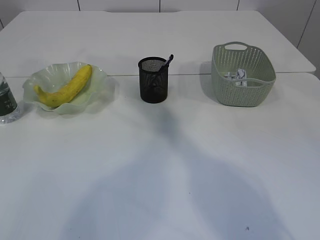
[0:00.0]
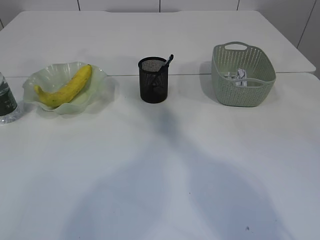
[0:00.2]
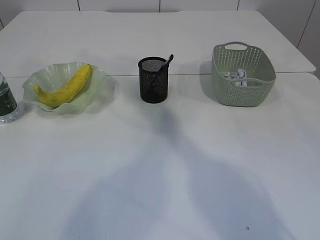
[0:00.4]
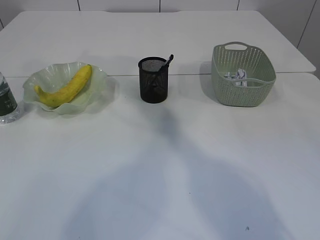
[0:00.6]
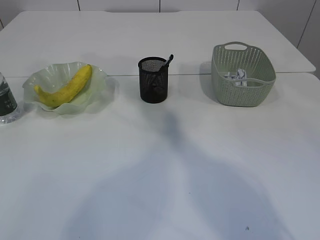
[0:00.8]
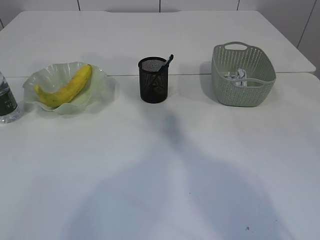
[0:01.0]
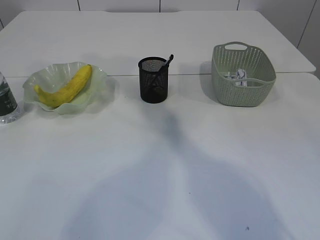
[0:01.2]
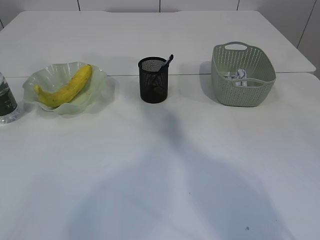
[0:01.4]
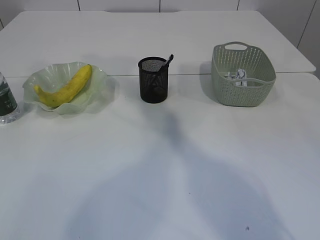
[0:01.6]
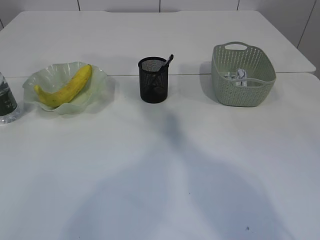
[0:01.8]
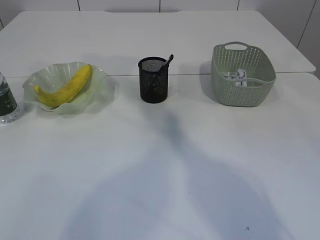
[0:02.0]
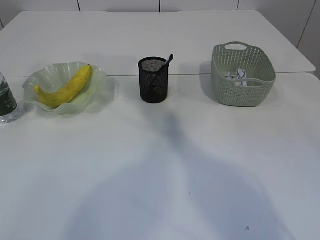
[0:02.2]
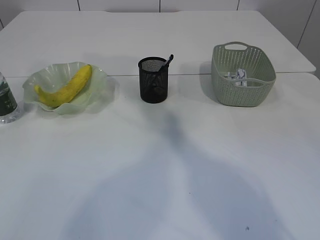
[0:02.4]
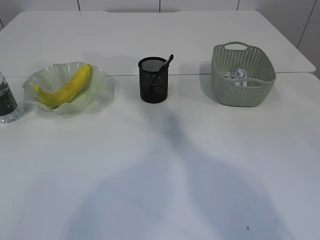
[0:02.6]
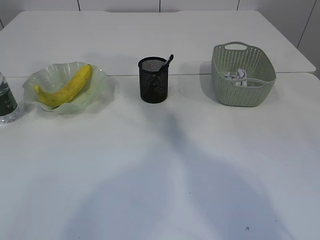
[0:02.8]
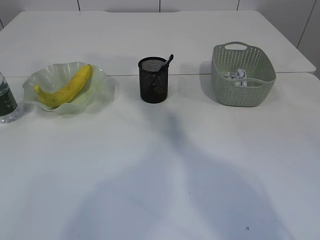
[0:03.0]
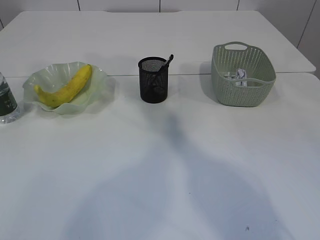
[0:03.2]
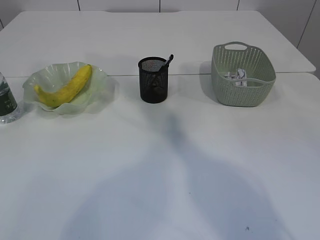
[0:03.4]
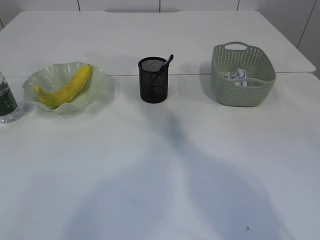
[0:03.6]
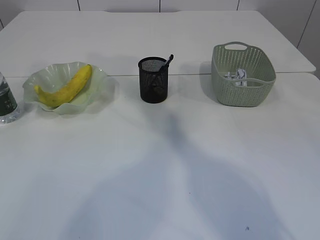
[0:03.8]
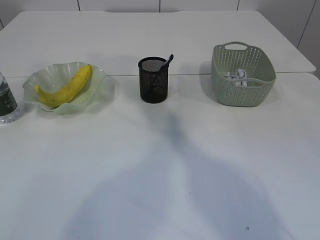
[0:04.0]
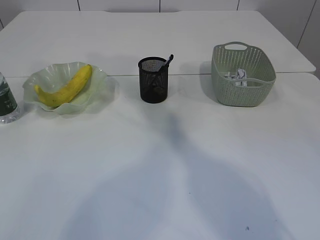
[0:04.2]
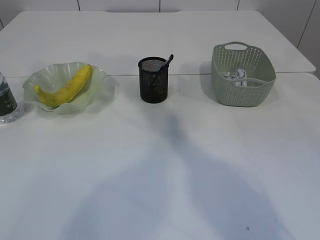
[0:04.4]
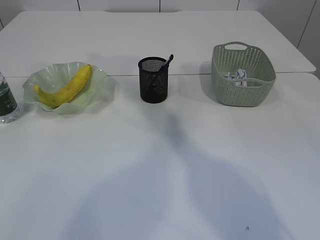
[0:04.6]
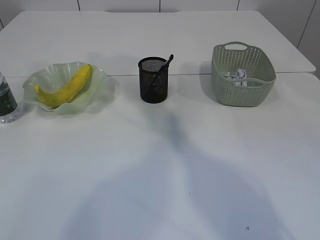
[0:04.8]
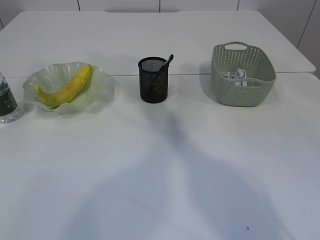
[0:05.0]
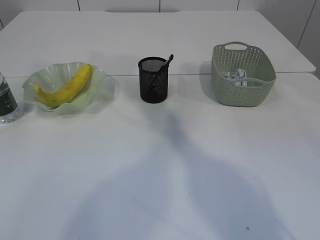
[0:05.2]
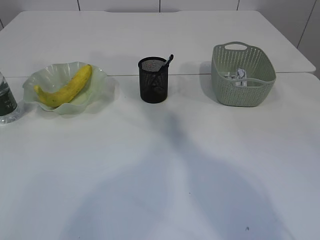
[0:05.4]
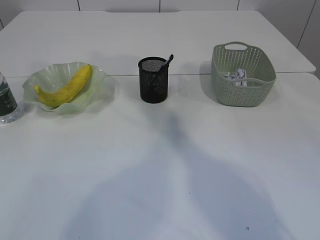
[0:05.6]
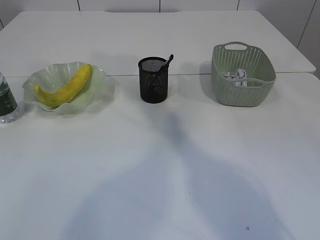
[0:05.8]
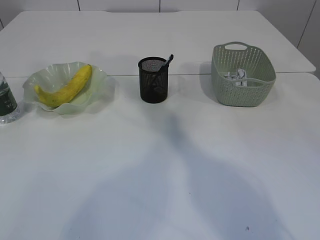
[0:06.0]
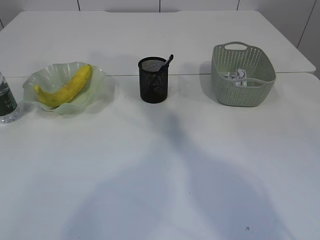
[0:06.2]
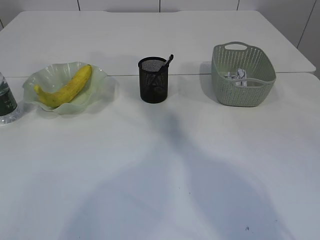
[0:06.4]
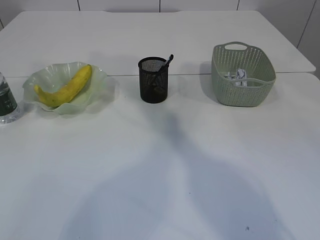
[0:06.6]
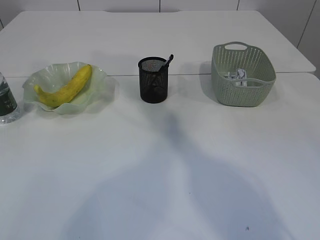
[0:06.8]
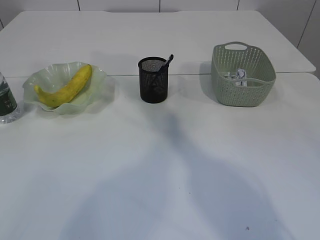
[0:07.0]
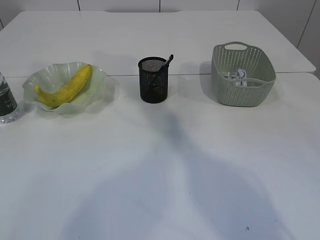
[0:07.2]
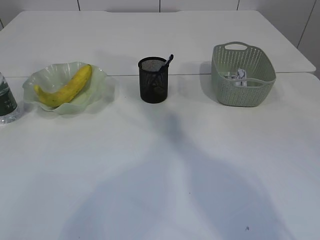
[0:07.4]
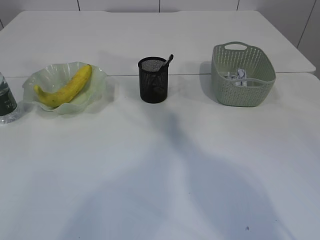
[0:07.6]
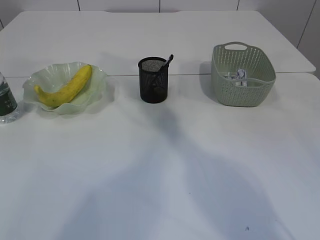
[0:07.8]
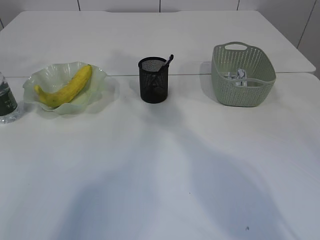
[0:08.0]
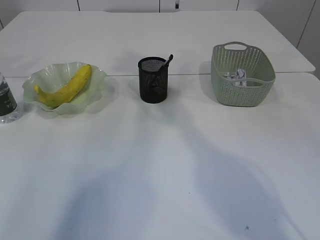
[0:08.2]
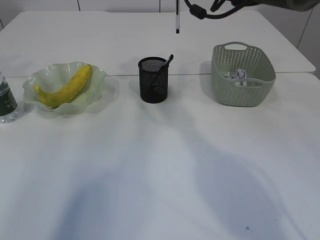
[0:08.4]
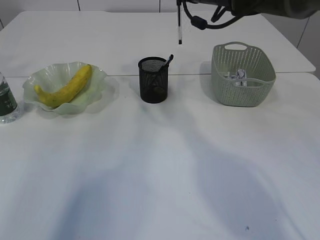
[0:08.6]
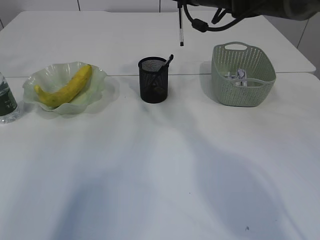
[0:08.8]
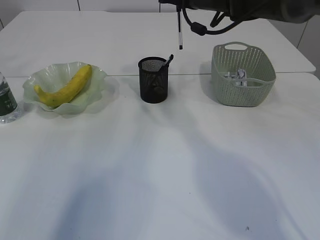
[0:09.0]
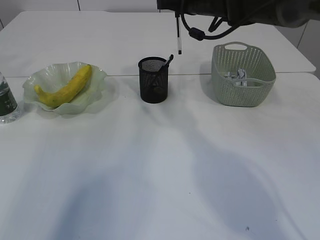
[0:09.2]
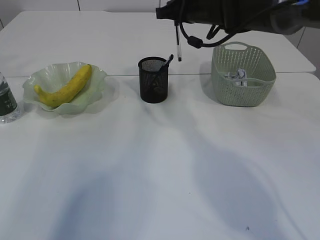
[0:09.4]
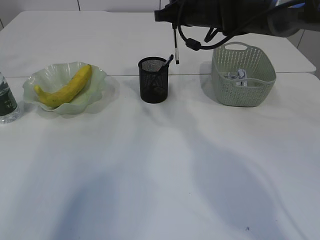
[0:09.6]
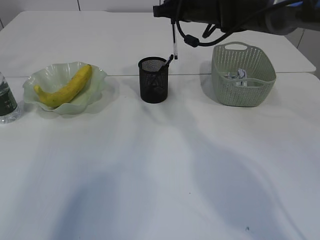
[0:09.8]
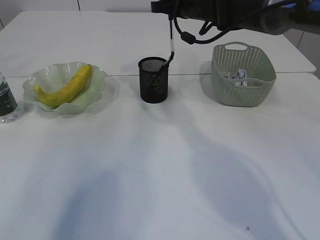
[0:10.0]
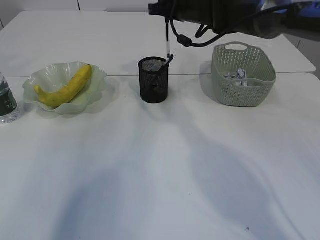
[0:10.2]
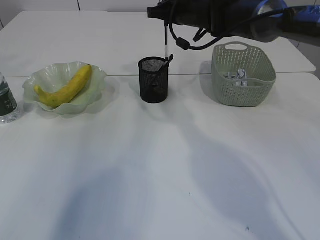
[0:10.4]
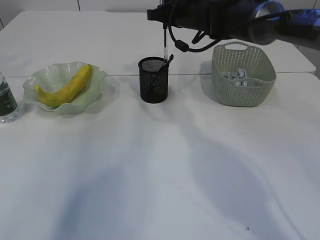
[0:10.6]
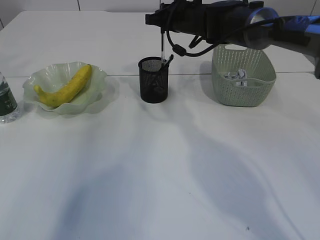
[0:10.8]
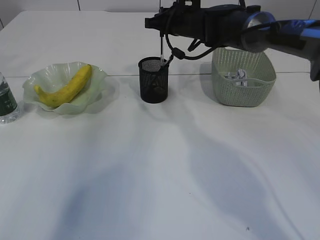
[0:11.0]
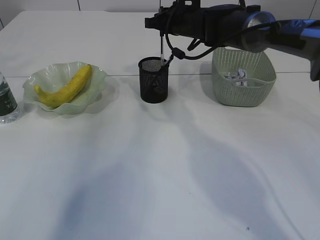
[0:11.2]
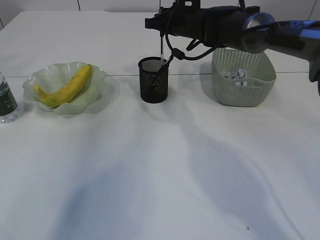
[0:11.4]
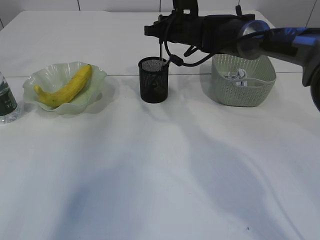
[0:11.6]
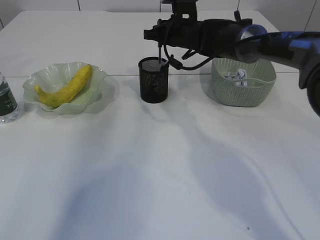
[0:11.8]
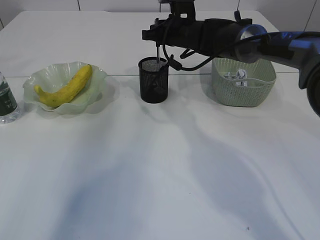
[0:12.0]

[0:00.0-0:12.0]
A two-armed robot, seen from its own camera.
0:01.6 to 0:03.0: Both grippers stay put.
0:03.0 to 0:06.0: Both grippers stay put.
0:07.6 to 0:09.0: The right gripper is displaced downward by roughly 10 cm. The left gripper goes about 10 cm to the left.
0:09.0 to 0:10.4: The right gripper shifts by roughly 5 cm.
0:10.4 to 0:12.0: The right gripper shifts by about 5 cm.

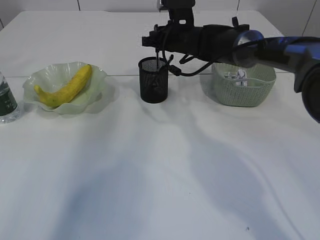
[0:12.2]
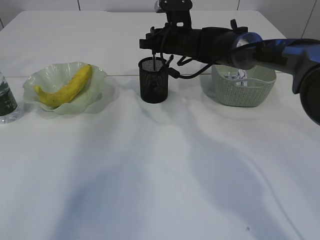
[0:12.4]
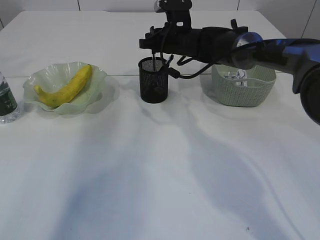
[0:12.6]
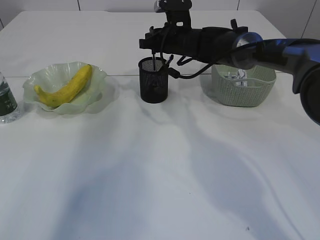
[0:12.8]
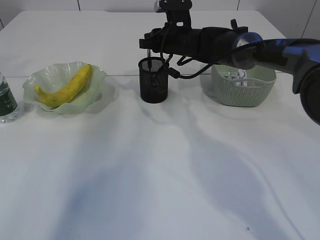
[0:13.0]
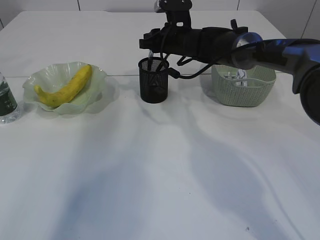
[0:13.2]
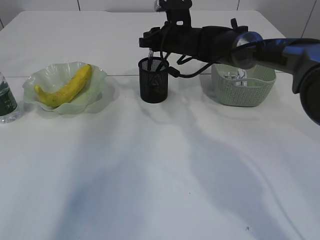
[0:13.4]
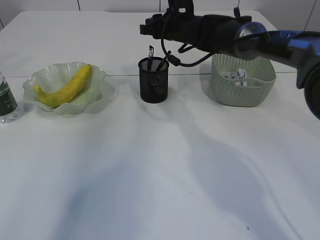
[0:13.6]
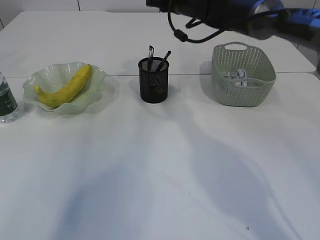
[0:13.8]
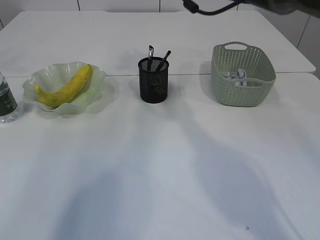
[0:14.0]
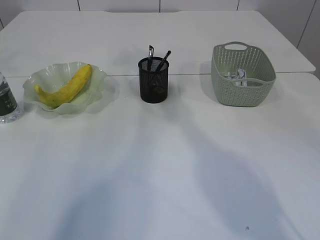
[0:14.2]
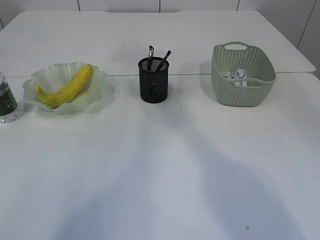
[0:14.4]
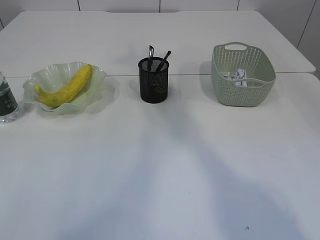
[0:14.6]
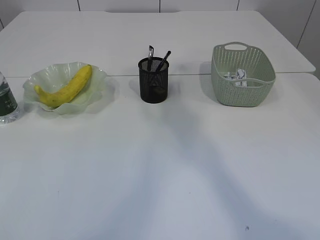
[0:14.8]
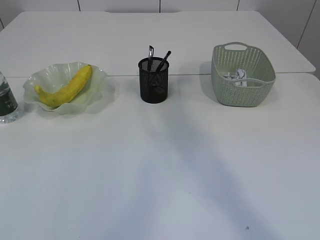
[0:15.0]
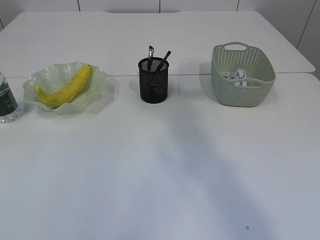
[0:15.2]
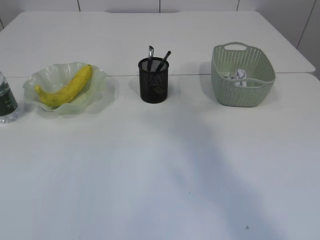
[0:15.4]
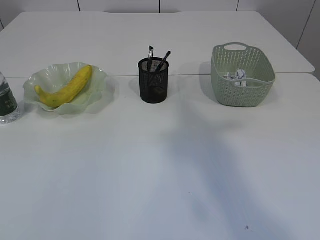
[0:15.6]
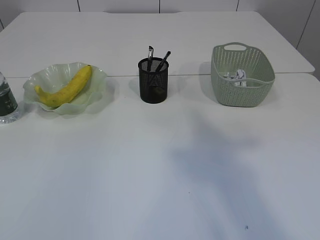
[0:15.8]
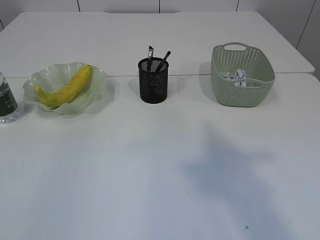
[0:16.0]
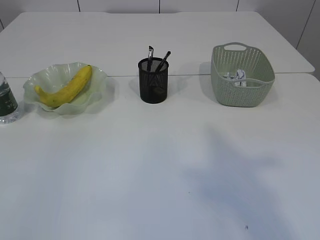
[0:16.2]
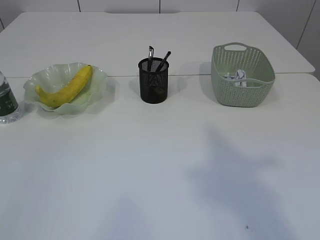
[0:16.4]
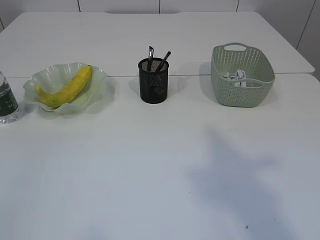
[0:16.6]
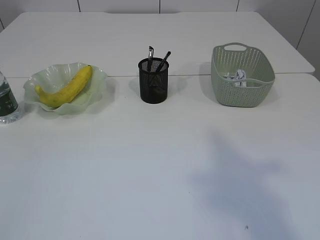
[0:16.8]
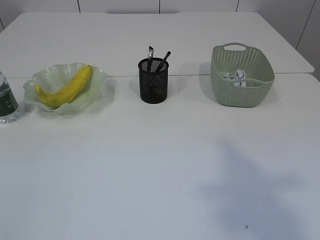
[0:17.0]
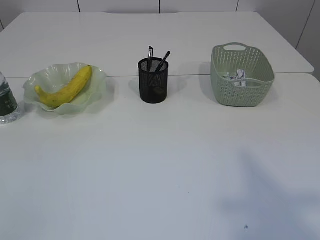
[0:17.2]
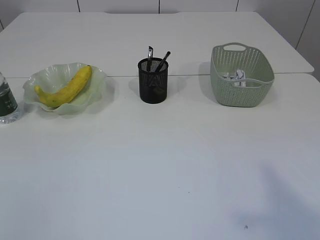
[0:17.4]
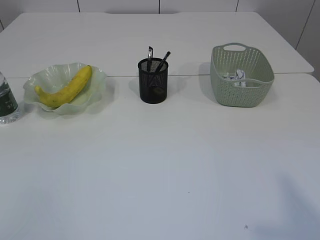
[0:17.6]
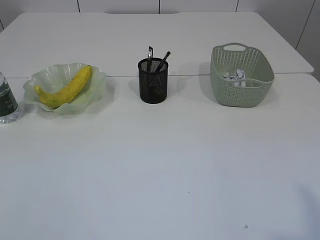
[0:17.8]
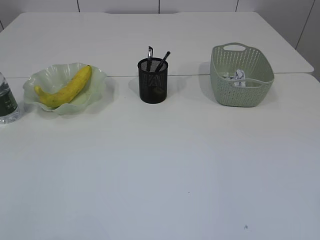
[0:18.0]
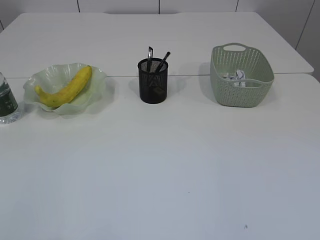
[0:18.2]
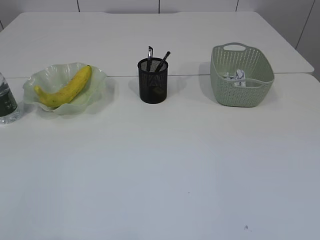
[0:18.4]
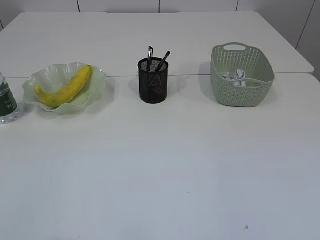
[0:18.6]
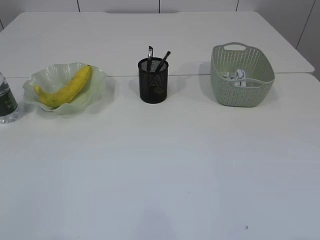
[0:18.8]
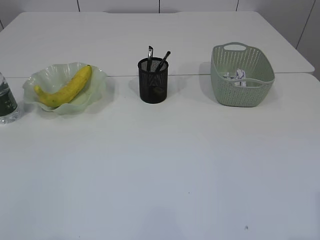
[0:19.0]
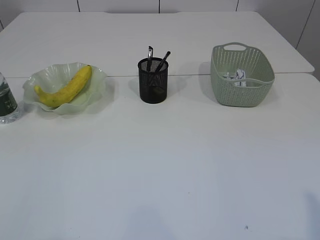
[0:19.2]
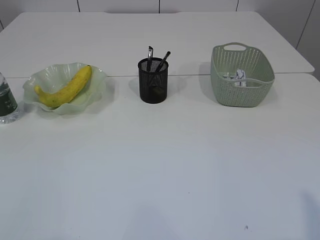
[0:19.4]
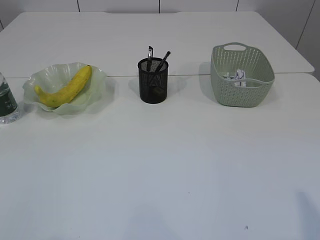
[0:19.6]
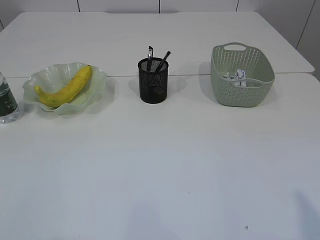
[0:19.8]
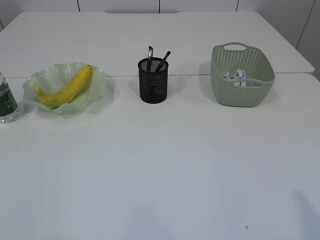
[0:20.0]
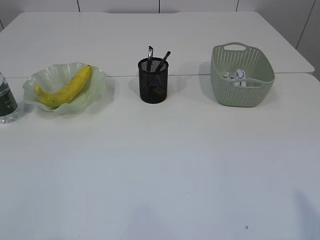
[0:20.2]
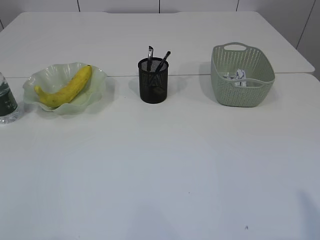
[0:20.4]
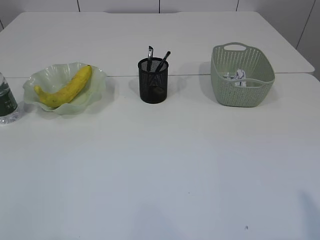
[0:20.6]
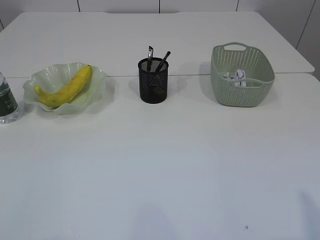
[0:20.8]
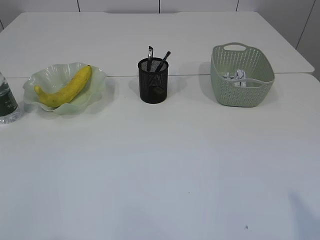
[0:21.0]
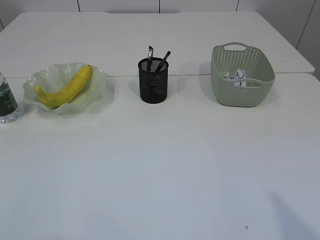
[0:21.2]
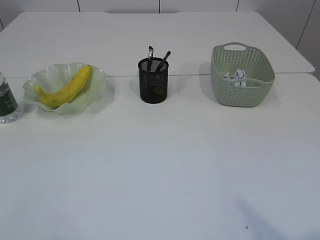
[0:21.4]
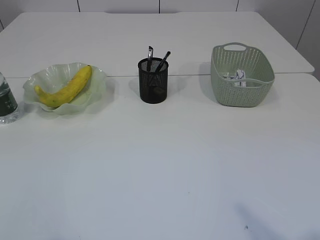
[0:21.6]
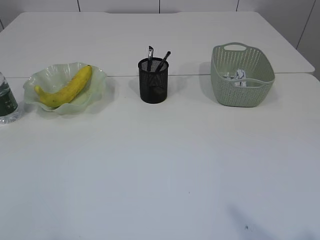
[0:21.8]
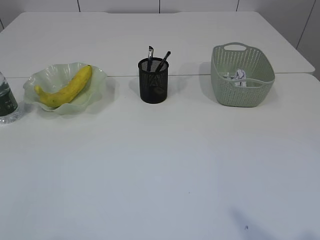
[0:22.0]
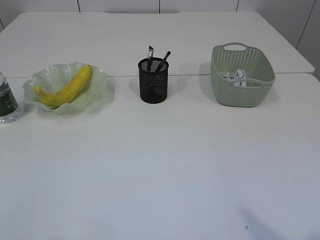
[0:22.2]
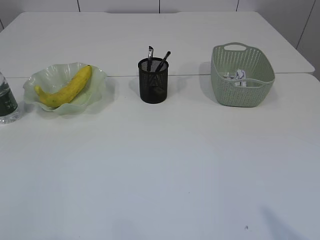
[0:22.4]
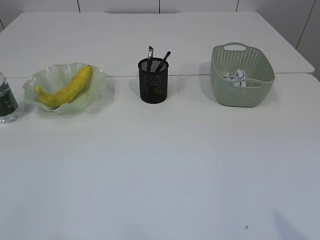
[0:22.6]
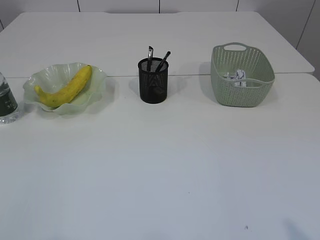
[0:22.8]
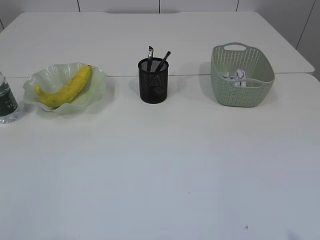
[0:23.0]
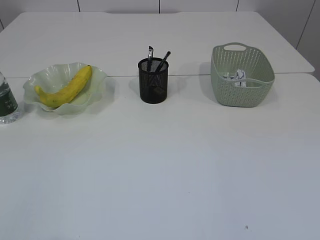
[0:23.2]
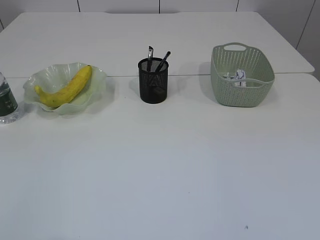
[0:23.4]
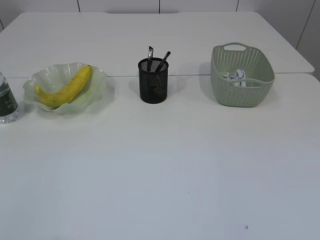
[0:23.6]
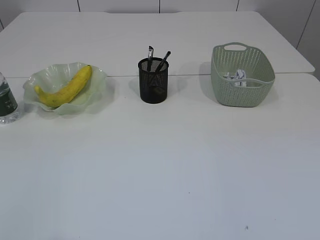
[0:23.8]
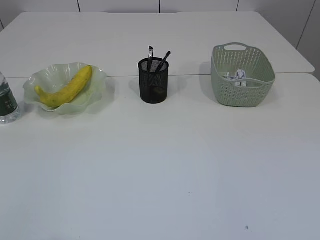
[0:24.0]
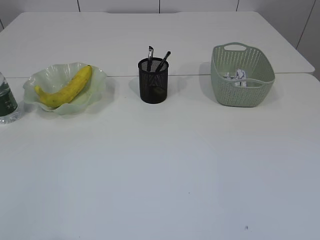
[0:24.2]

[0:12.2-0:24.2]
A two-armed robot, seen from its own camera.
0:12.2 to 0:13.8: The right gripper travels upward by some 10 cm.
0:13.8 to 0:15.2: The left gripper heads backward and upward, covering approximately 25 cm, while the right gripper moves backward and upward, some 40 cm.
0:15.2 to 0:16.6: The right gripper shifts approximately 15 cm backward and downward. Meanwhile the left gripper is displaced backward by roughly 35 cm.
0:16.6 to 0:18.2: The right gripper shifts about 15 cm backward, downward and to the right.
